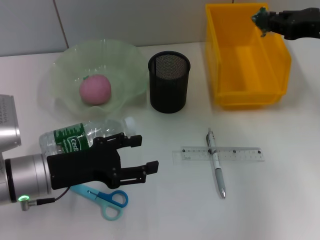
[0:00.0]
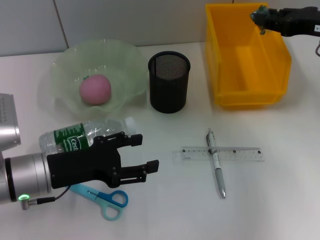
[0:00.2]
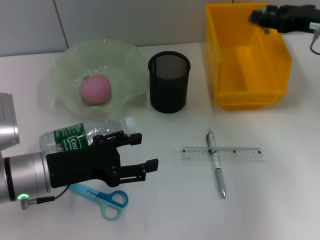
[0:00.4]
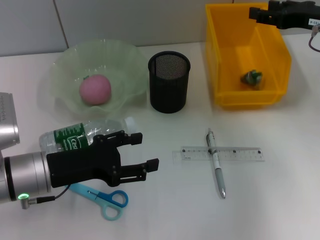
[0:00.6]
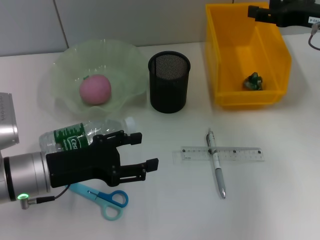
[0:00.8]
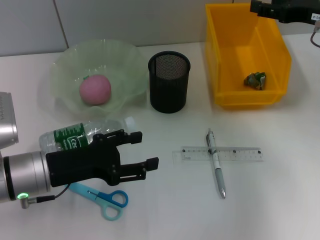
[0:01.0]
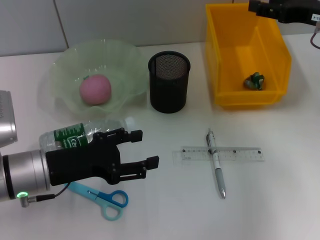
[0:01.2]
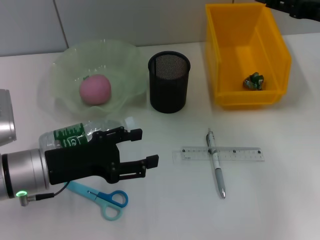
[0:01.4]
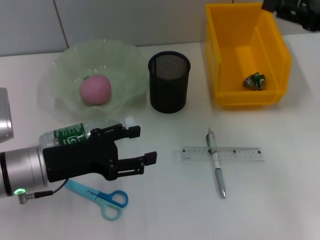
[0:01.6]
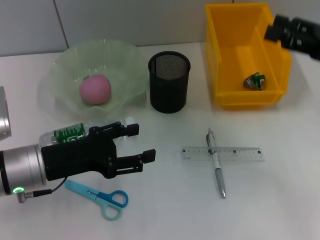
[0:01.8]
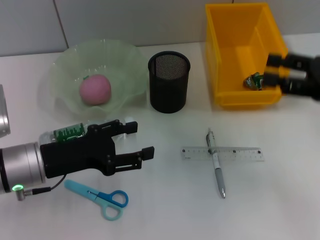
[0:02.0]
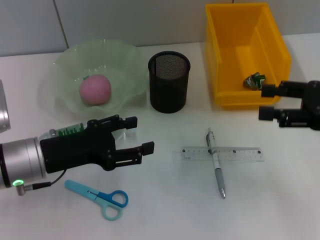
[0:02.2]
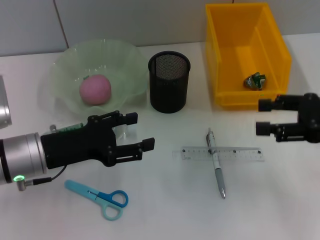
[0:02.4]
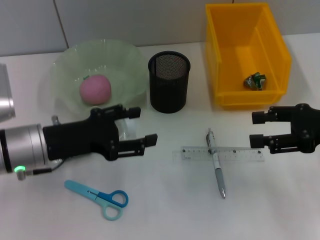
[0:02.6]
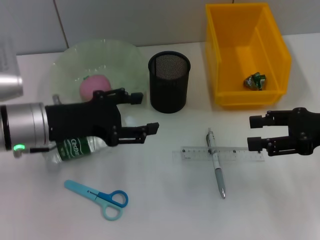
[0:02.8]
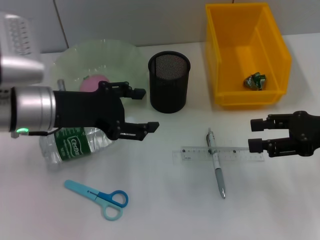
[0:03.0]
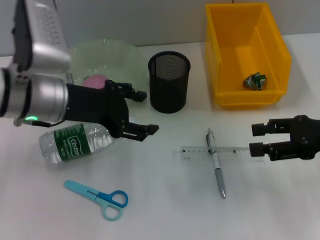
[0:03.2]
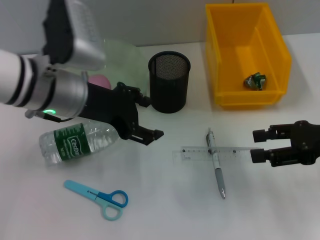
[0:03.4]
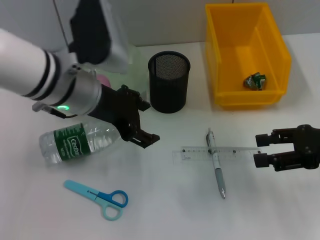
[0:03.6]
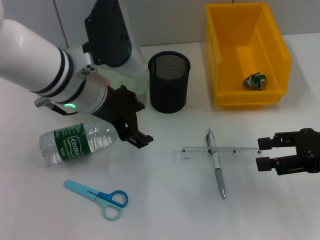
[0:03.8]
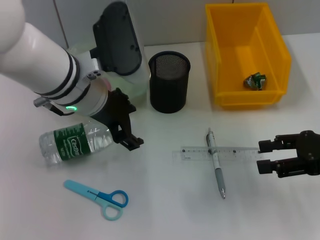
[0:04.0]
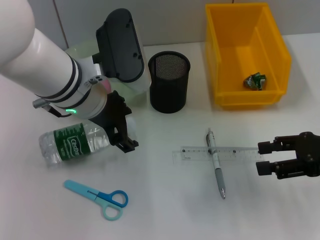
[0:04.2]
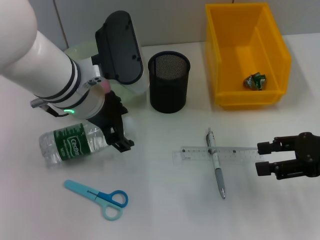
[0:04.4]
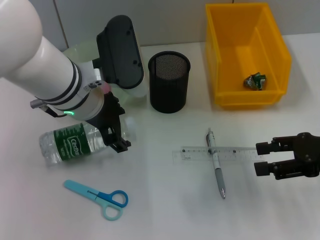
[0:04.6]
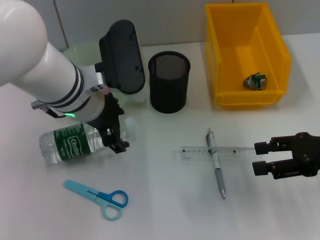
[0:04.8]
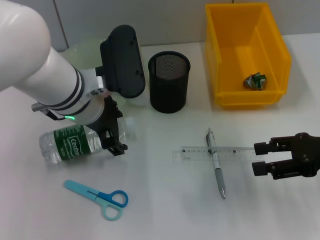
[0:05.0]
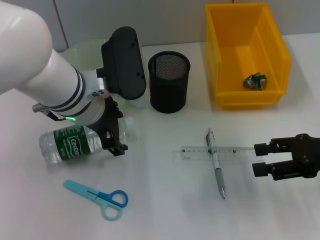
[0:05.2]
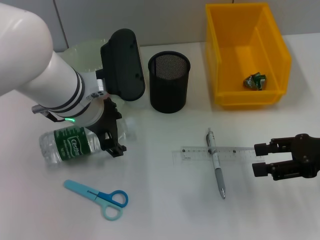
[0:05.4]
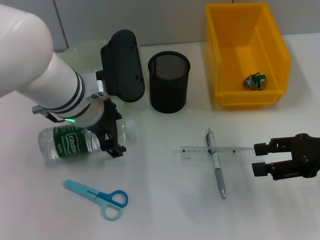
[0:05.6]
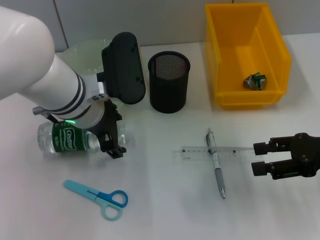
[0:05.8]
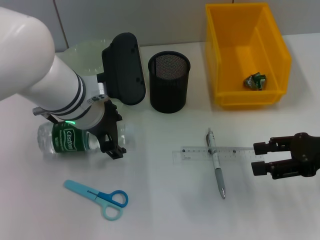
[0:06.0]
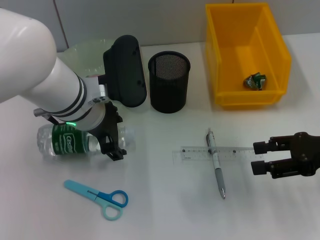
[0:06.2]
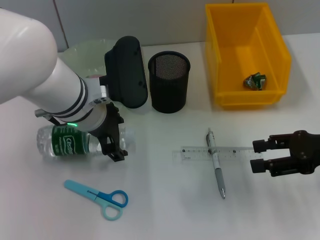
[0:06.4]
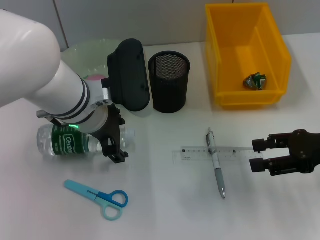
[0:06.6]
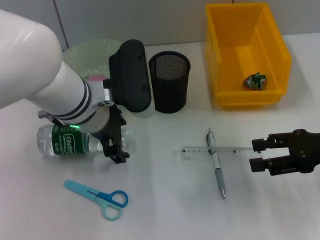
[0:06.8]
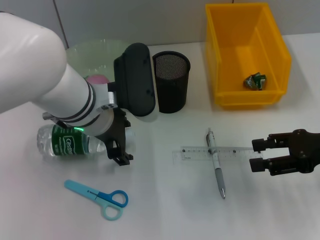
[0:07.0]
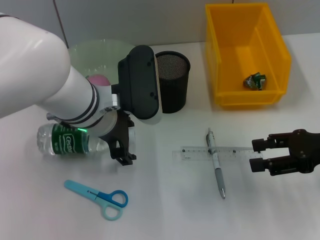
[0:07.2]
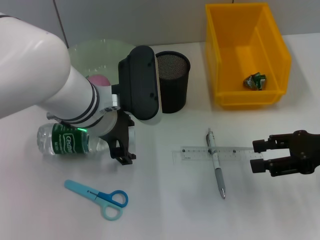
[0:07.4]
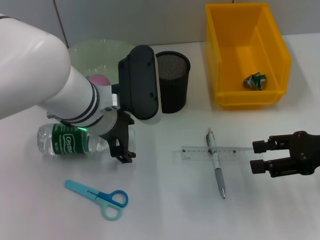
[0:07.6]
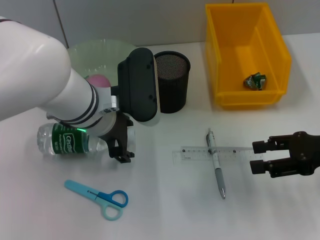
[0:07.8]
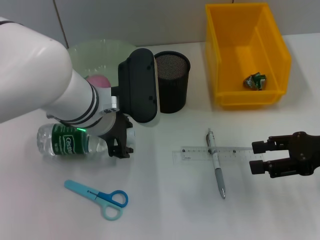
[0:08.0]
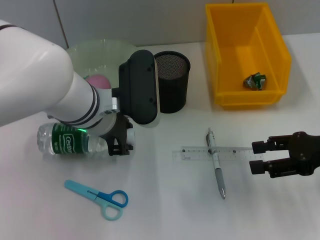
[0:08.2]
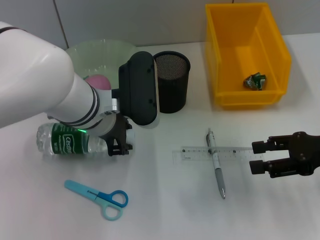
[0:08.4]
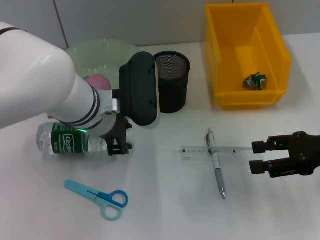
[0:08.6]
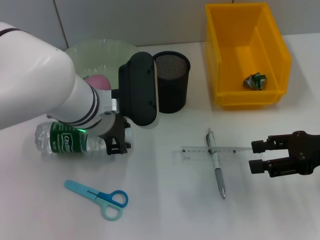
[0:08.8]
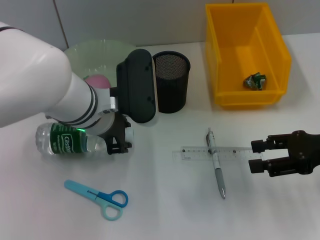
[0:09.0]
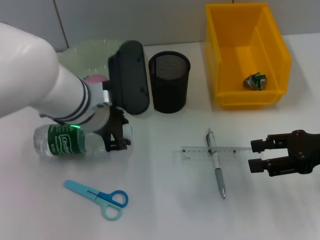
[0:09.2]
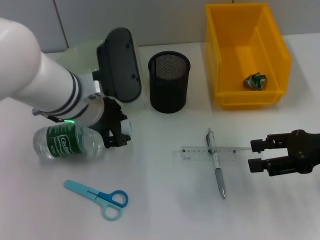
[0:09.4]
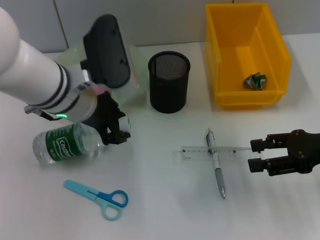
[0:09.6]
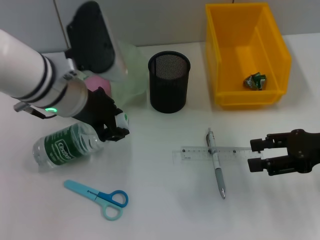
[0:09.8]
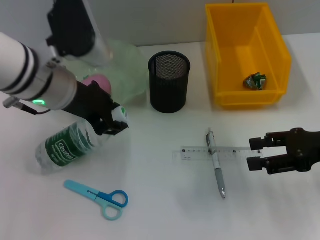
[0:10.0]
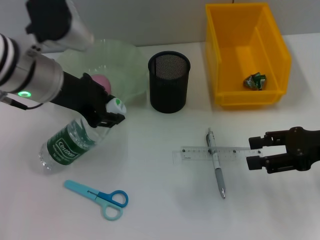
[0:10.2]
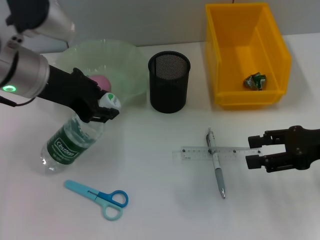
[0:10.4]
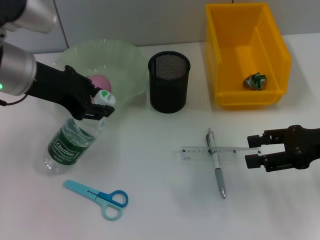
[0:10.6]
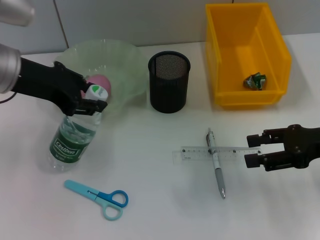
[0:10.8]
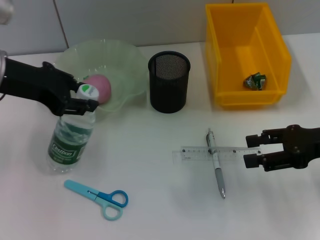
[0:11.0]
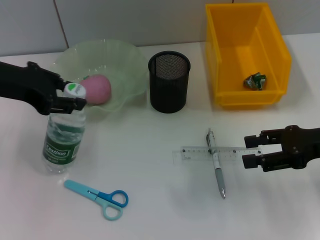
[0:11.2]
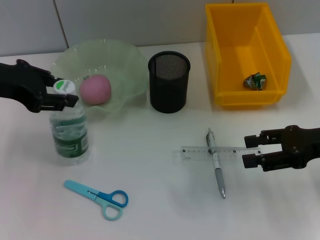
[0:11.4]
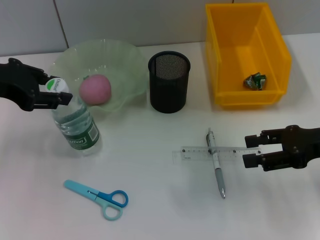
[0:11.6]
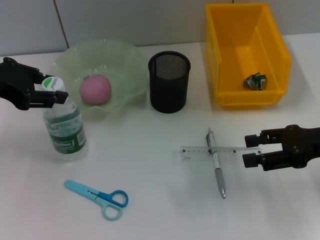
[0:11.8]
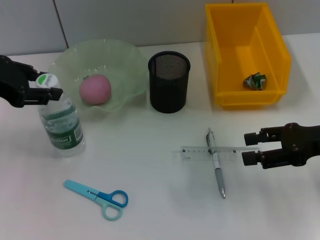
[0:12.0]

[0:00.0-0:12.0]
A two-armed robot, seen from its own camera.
Step, 0:00.8 to 0:08.8: Grab the water bottle with the left hand.
0:00.0 to 0:01.6: The right gripper opens up.
0:01.6 to 0:03.0: The right gripper shifts about 10 cm backward and downward; the left gripper moves upward and forward, about 10 cm.
0:03.0 to 0:04.4: The left gripper goes roughly 10 cm to the right.
0:04.4 to 0:07.6: The grippers make only small movements.
0:07.6 to 0:09.0: The left gripper closes its fingers.
0:09.0 to 0:10.4: The left gripper goes approximately 10 cm to the left and upward.
0:10.4 to 0:12.0: The left gripper is displaced to the left by approximately 10 cm.

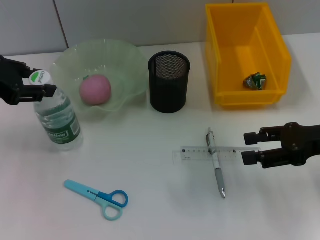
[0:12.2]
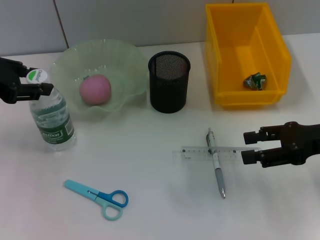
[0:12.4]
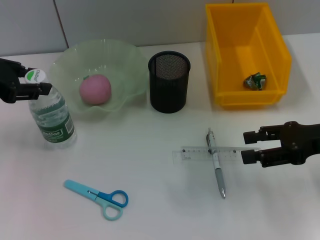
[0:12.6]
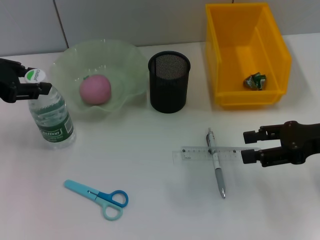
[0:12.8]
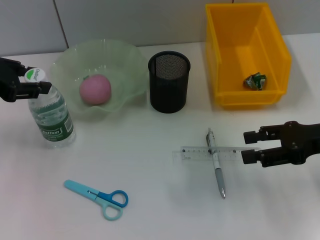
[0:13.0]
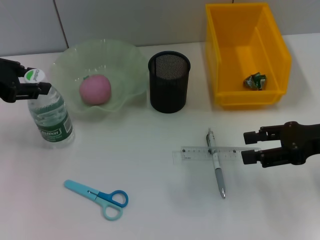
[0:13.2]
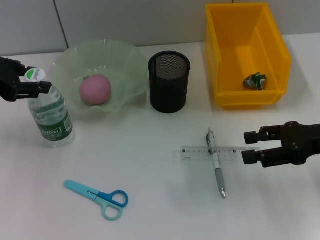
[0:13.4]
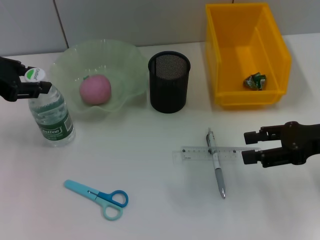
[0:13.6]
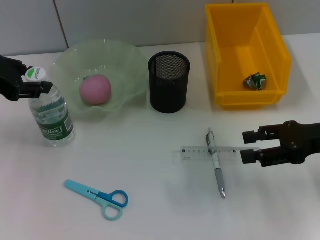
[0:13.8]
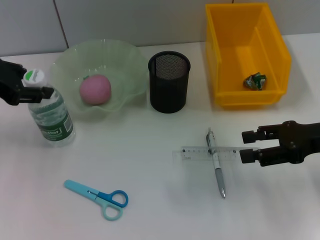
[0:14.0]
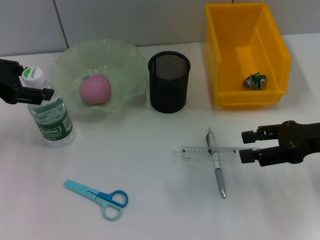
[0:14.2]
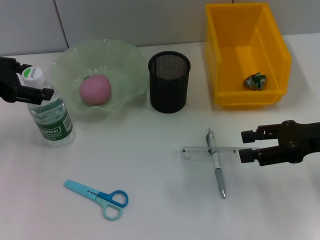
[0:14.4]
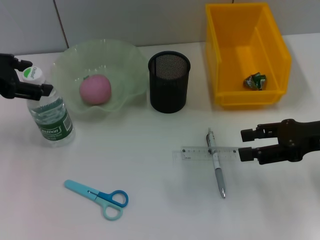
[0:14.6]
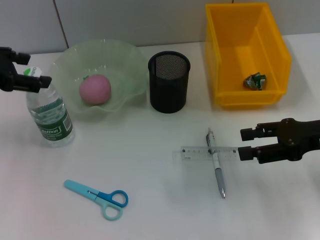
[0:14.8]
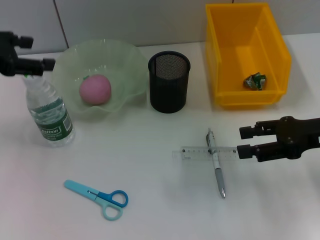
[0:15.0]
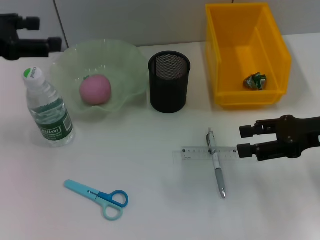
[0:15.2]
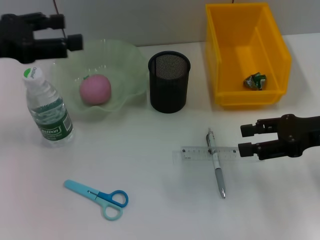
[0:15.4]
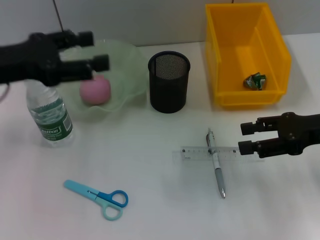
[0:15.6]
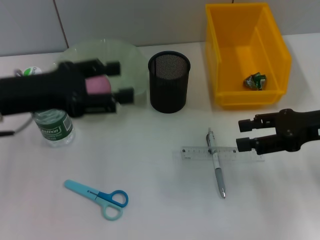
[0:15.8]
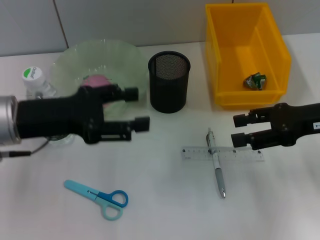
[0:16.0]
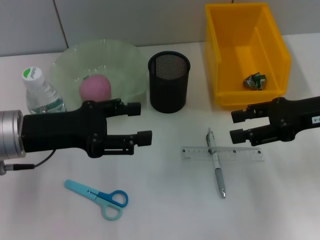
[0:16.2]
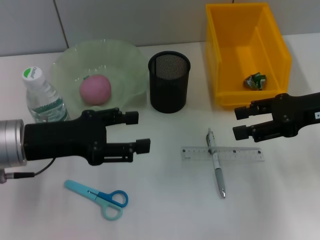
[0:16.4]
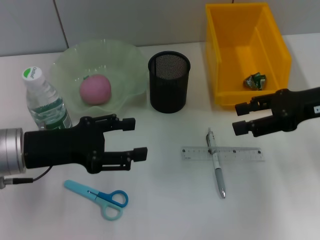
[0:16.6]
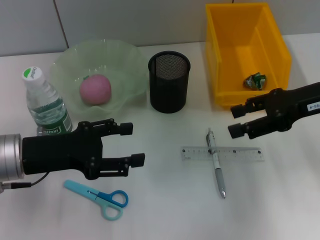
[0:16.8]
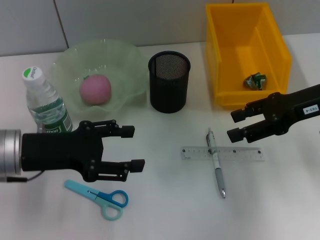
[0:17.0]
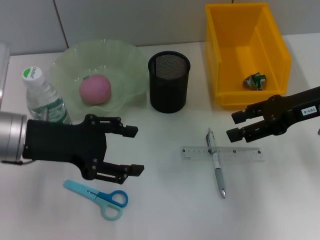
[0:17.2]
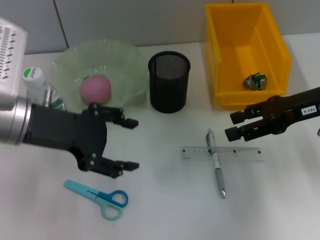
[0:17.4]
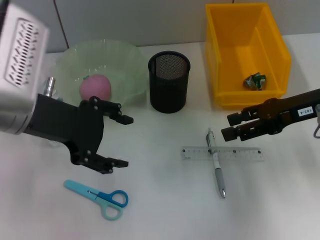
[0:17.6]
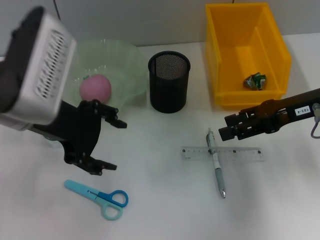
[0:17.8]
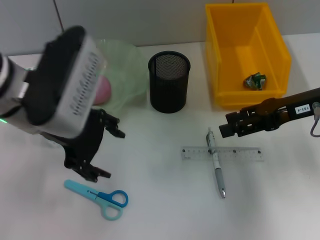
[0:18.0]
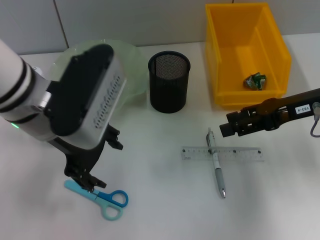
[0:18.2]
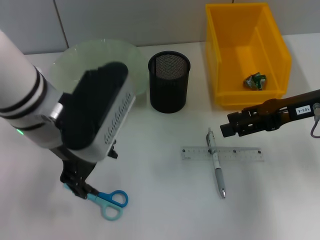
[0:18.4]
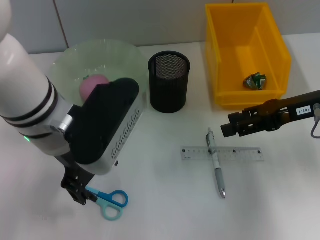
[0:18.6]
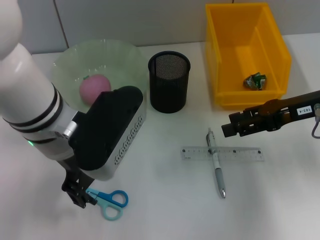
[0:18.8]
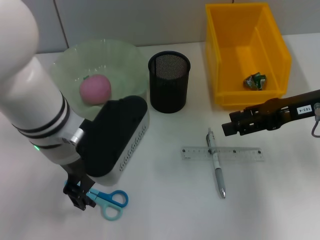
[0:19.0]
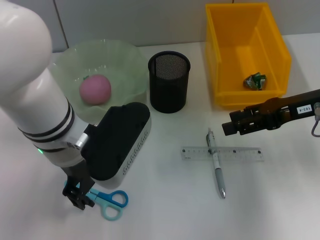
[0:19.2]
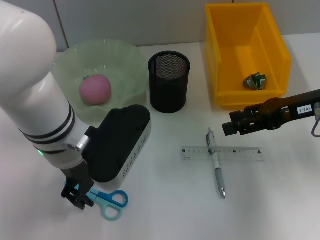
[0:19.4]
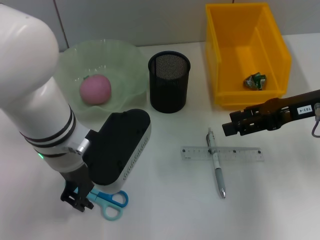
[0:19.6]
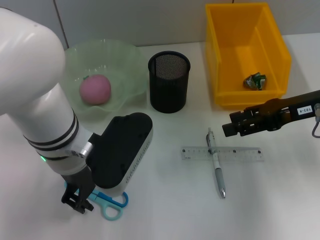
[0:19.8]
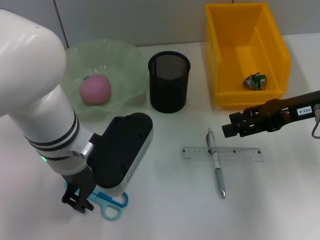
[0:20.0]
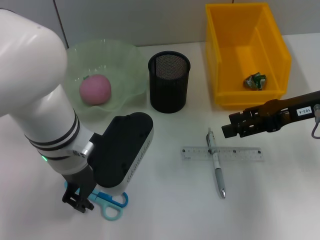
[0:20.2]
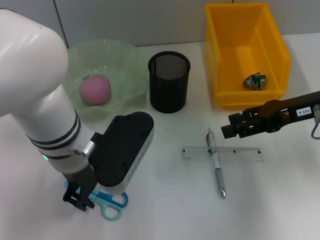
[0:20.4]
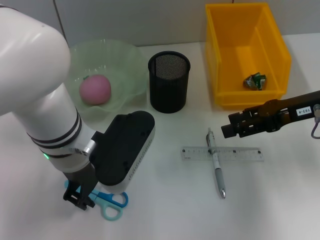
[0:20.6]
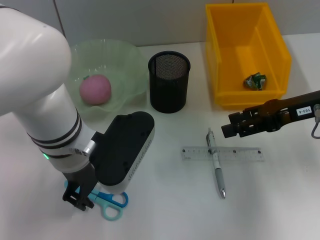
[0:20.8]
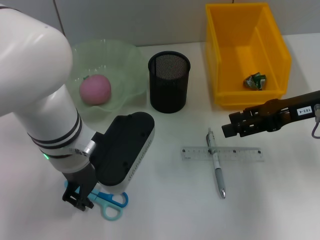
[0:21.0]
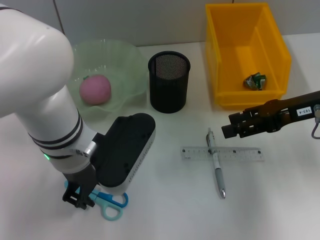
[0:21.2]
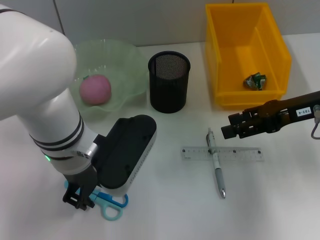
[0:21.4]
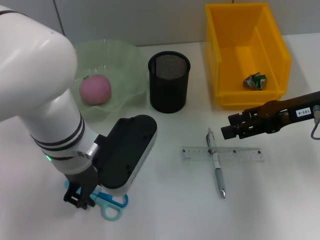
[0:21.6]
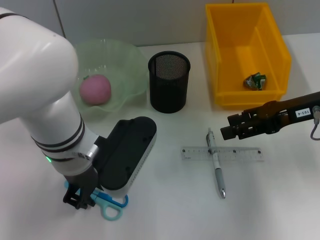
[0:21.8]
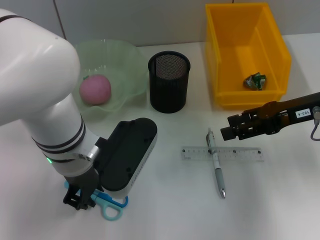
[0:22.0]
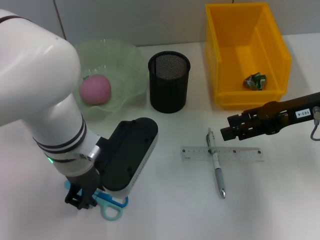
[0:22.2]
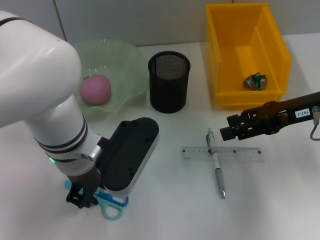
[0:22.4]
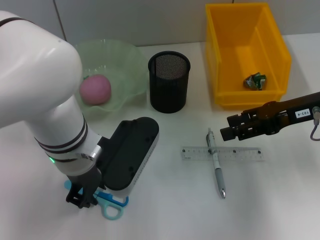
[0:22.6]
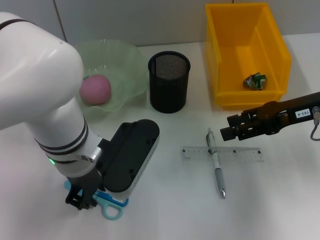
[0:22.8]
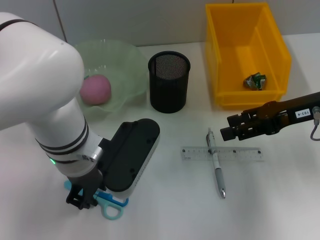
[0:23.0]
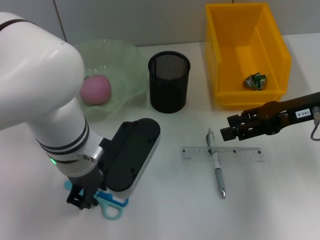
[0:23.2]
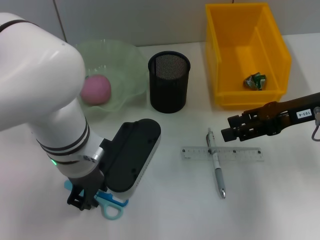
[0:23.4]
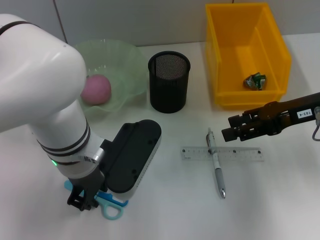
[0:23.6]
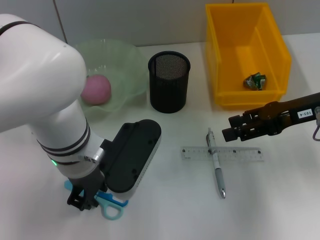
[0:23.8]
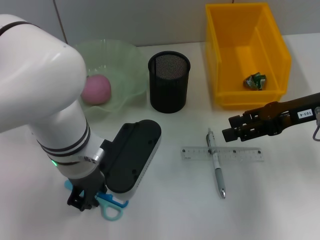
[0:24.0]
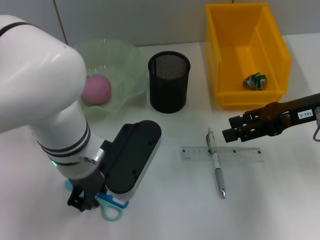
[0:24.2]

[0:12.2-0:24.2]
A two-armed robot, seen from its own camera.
Step, 0:12.2 to 0:14.2: Place the water bottle on the table with the left hand.
0:12.2 to 0:13.8: Both grippers stay put.
0:13.8 to 0:15.2: The left gripper opens.
0:15.2 to 0:16.6: The left gripper is displaced downward, to the right and backward by approximately 15 cm.
0:16.6 to 0:18.2: The left gripper shifts roughly 15 cm upward and to the right.
0:18.2 to 0:19.8: The left gripper travels downward by roughly 5 cm, and closes.
0:19.8 to 0:22.6: Both grippers stay put.
0:22.6 to 0:24.2: Both grippers stay about where they are.
